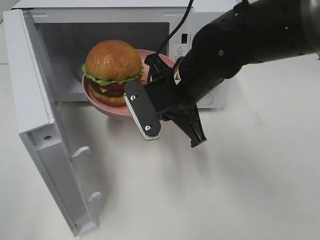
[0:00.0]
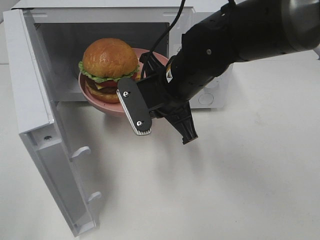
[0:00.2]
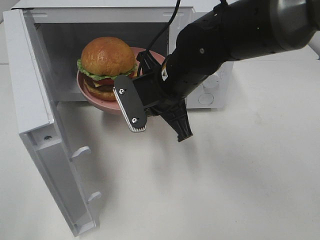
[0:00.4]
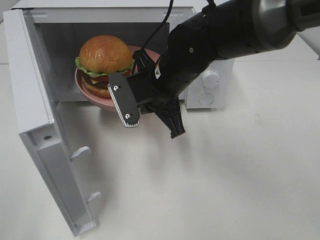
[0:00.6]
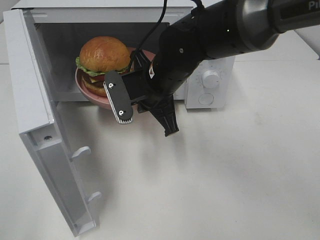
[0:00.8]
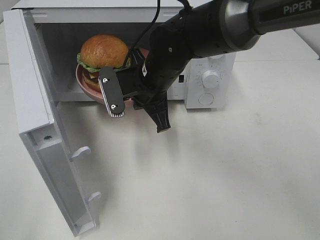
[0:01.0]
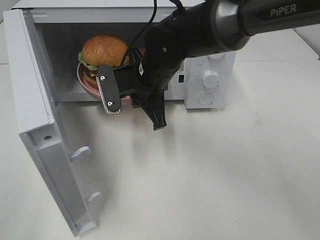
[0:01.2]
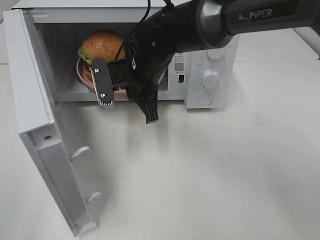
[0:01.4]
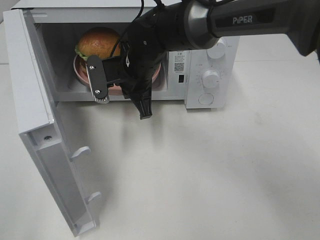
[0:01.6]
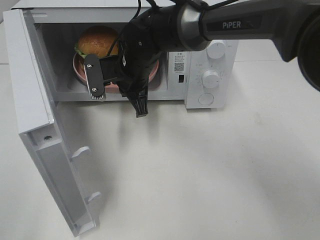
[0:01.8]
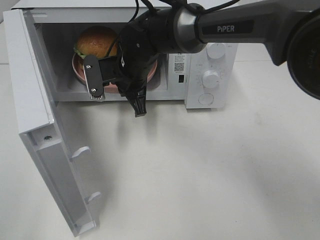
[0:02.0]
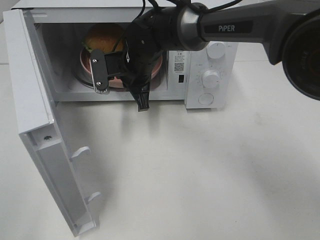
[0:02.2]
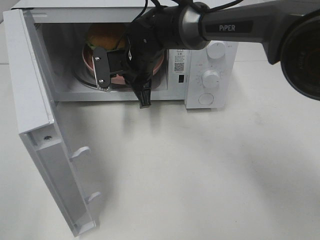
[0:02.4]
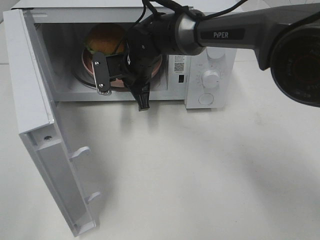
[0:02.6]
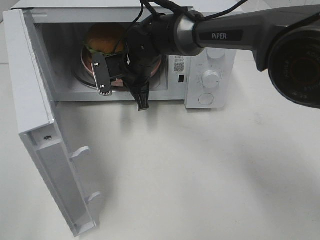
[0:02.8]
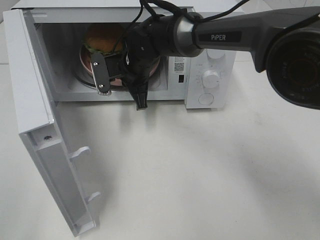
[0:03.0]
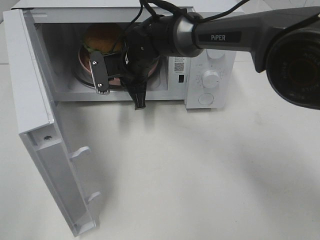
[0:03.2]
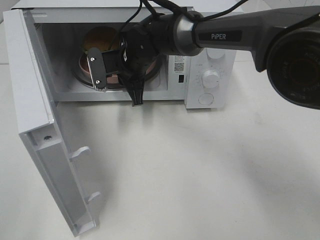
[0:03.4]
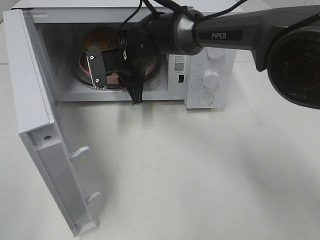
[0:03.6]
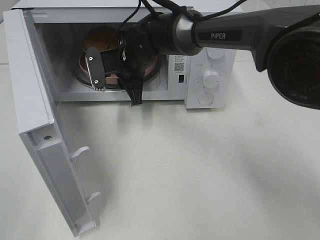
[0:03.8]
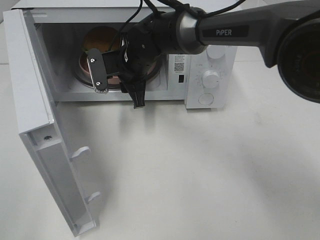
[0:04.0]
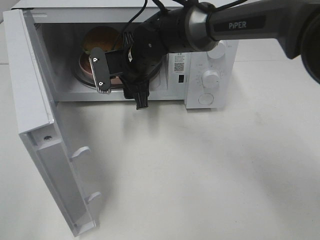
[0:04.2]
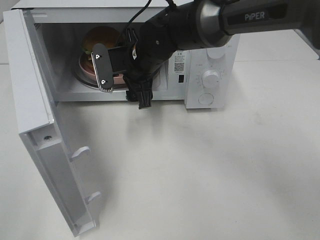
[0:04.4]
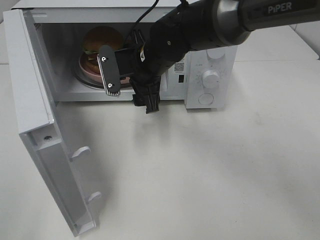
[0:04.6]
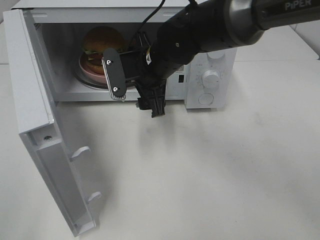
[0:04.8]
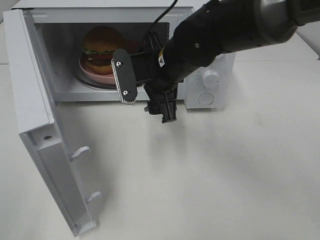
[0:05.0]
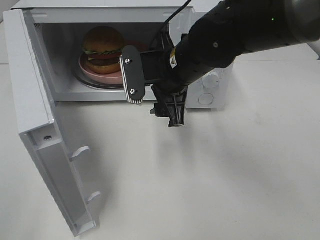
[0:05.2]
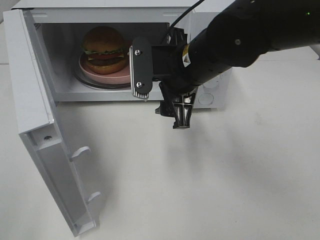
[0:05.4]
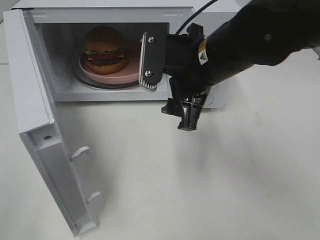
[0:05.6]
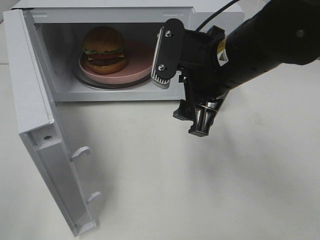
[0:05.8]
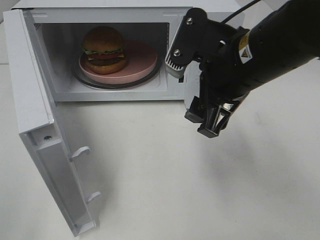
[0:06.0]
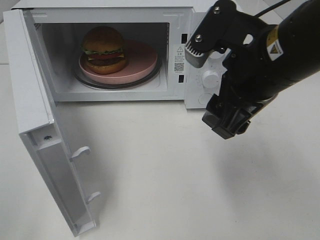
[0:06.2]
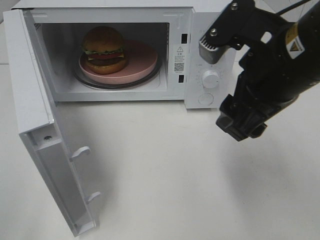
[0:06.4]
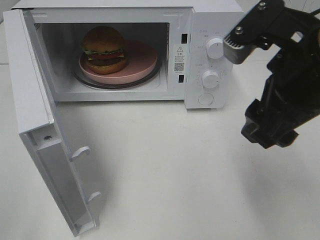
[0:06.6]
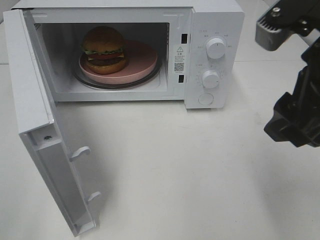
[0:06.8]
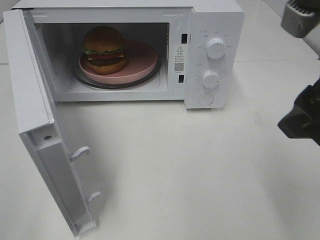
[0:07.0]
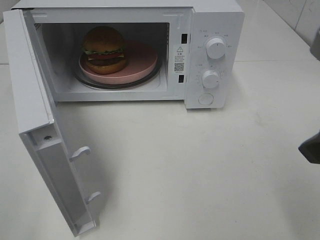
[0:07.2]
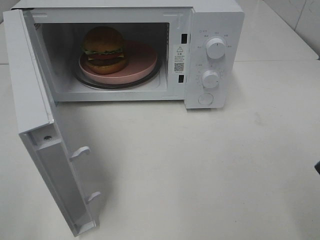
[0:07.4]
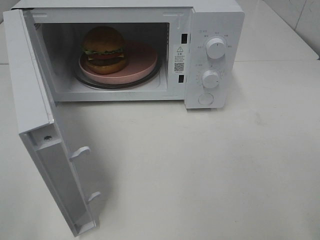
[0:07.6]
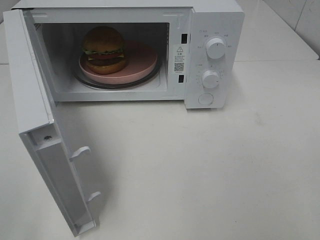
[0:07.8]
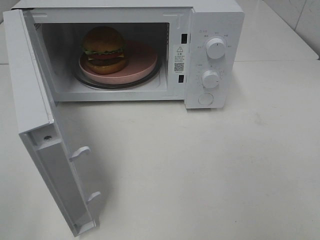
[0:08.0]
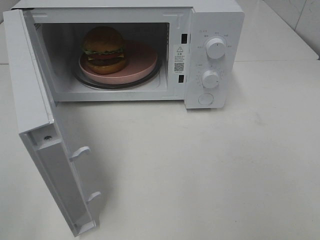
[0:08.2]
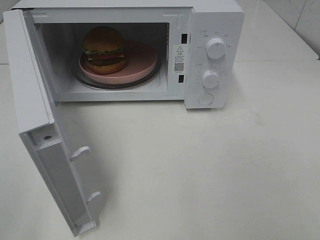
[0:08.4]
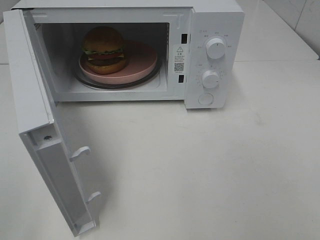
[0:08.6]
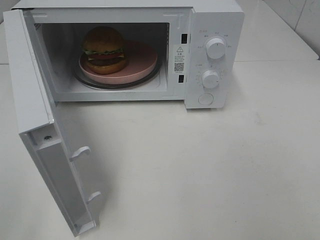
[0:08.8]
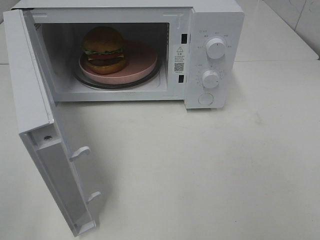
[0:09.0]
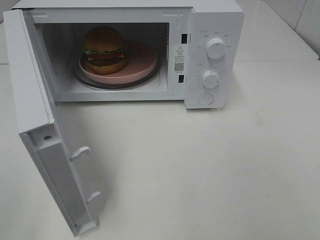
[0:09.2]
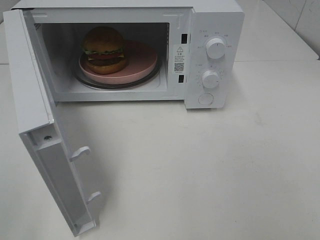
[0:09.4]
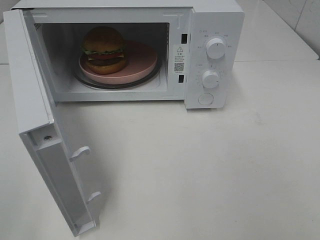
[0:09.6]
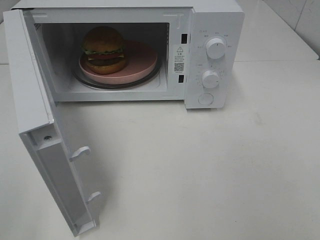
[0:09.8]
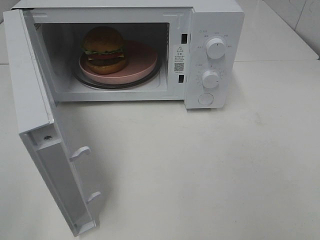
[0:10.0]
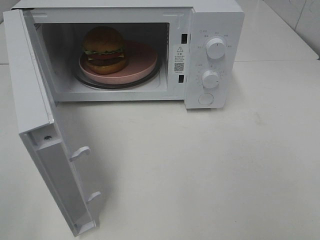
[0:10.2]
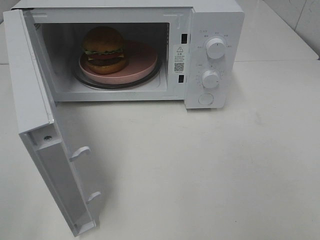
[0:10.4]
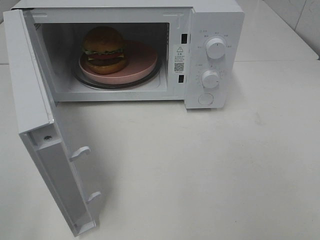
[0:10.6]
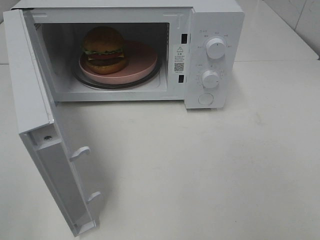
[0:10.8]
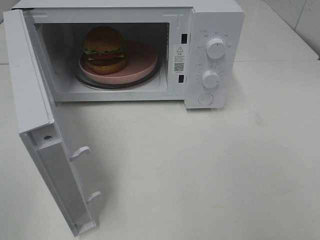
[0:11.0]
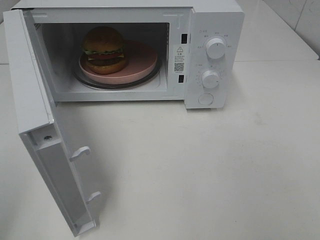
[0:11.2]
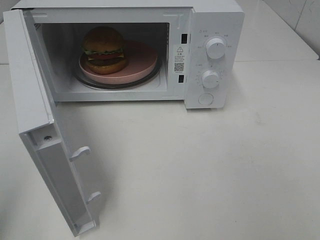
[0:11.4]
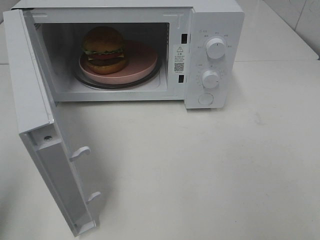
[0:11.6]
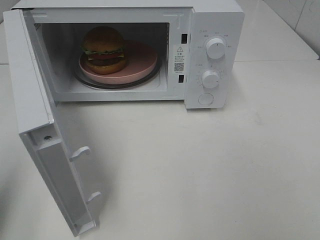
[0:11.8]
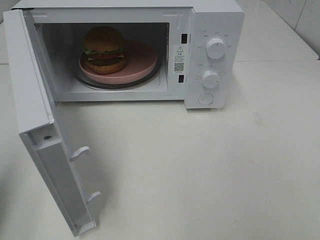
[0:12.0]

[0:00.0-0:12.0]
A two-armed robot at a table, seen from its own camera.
Task of the whole recording: Heat the burger.
Step, 0:00.0 to 0:03.4: Right hand: place the plate in the microwave.
0:00.0 to 0:01.6: The right gripper travels forward and to the left by about 10 cm.
0:01.6 to 0:03.0: The grippers move only a little.
0:03.0 to 0:04.4: The right gripper opens up.
0:04.4 to 0:06.0: The right gripper goes roughly 20 cm backward, to the right and upward.
0:06.0 to 0:07.6: The right gripper goes some 20 cm backward and to the right.
0:09.0 to 0:10.4: Both grippers stay about where they are.
0:10.4 to 0:12.0: The left gripper heads forward, covering some 10 cm, and closes.

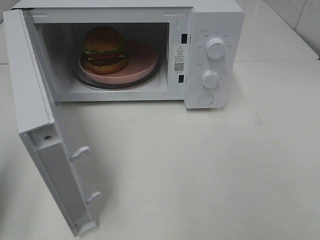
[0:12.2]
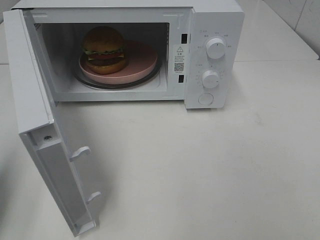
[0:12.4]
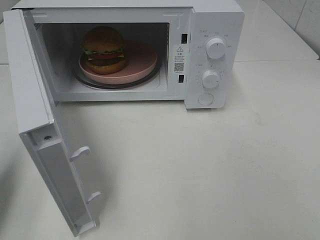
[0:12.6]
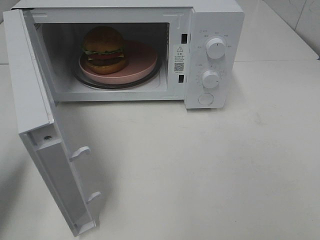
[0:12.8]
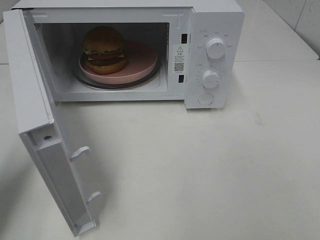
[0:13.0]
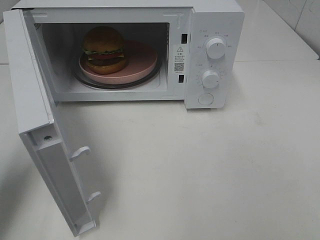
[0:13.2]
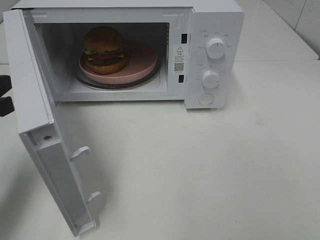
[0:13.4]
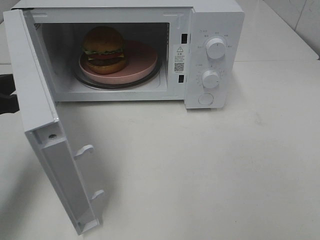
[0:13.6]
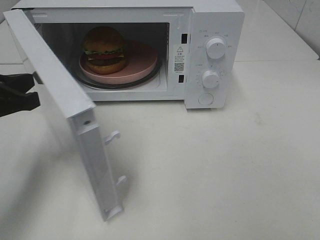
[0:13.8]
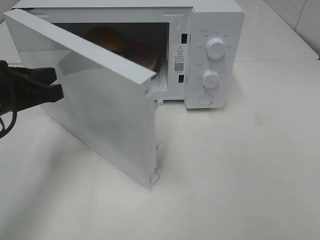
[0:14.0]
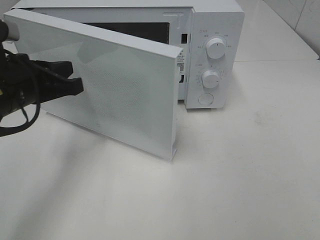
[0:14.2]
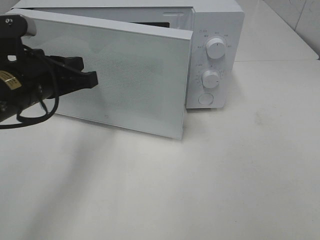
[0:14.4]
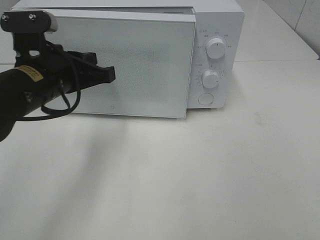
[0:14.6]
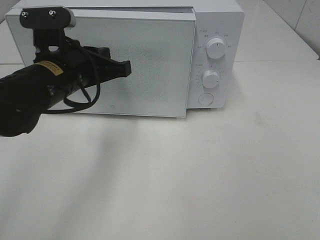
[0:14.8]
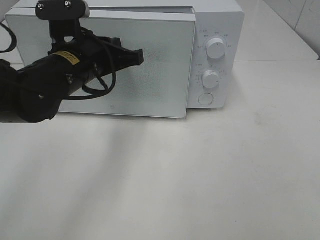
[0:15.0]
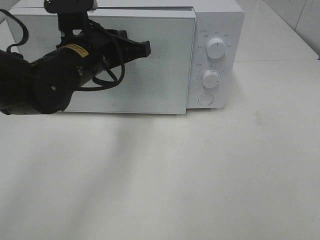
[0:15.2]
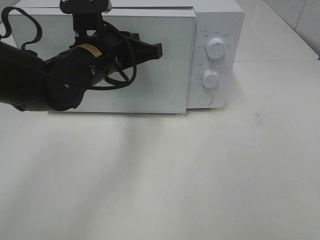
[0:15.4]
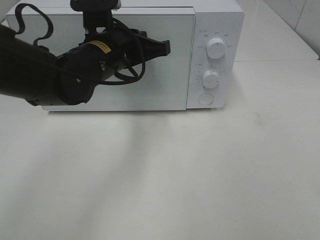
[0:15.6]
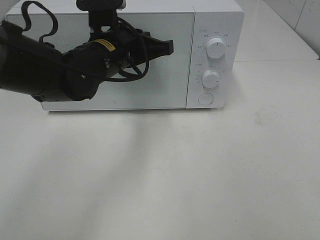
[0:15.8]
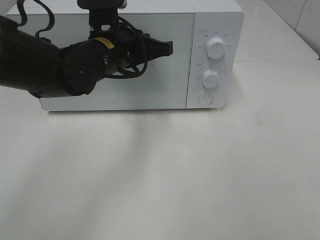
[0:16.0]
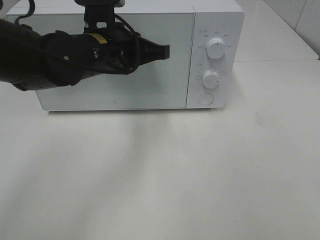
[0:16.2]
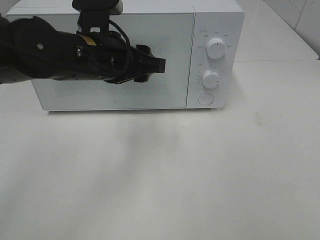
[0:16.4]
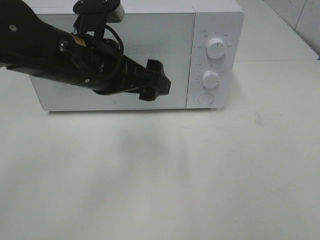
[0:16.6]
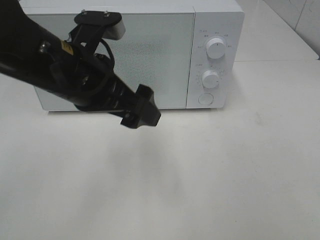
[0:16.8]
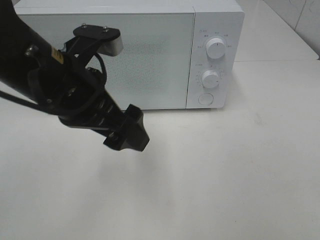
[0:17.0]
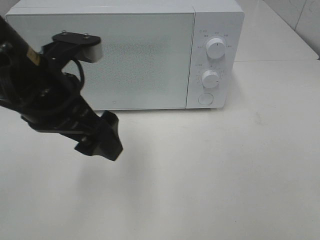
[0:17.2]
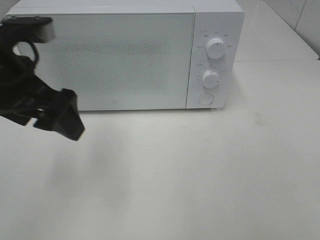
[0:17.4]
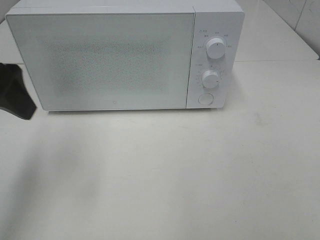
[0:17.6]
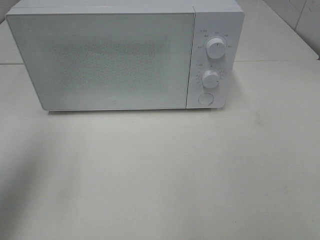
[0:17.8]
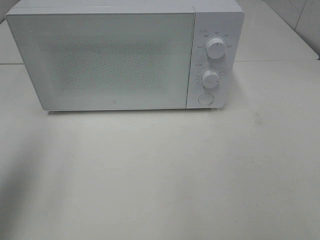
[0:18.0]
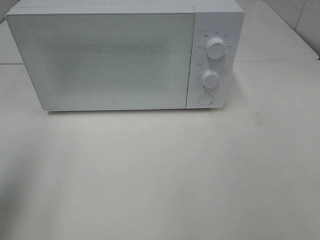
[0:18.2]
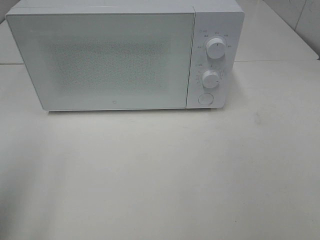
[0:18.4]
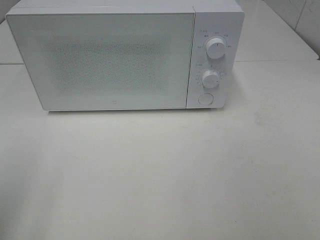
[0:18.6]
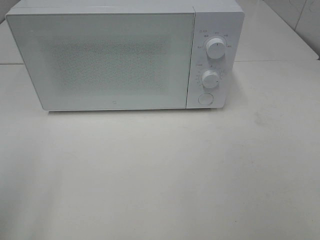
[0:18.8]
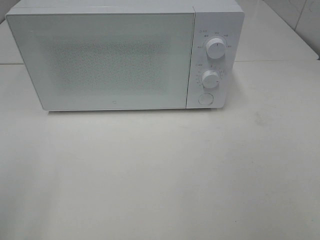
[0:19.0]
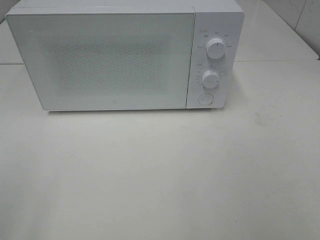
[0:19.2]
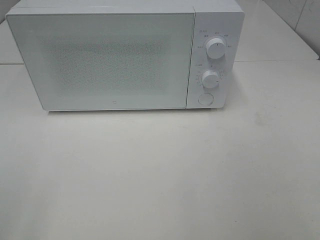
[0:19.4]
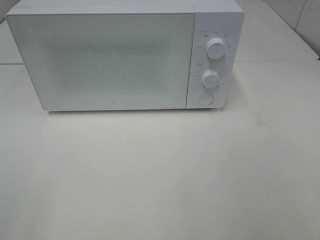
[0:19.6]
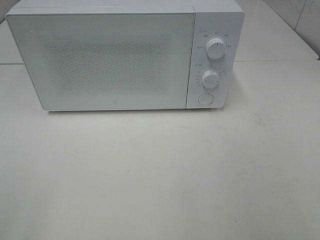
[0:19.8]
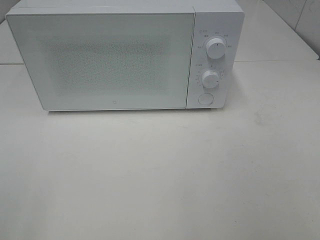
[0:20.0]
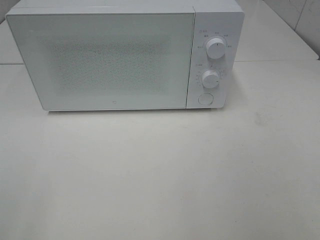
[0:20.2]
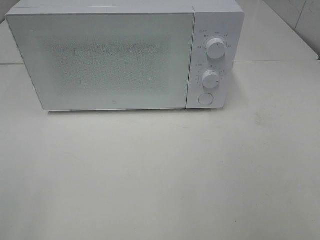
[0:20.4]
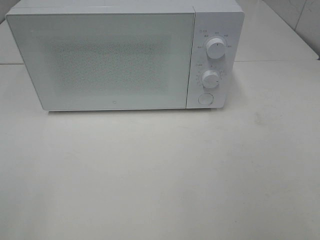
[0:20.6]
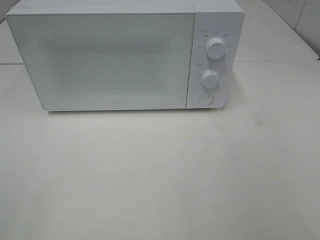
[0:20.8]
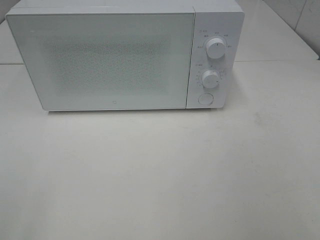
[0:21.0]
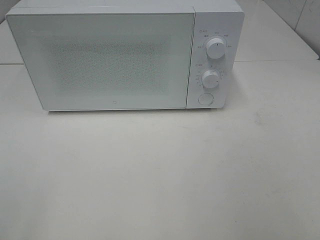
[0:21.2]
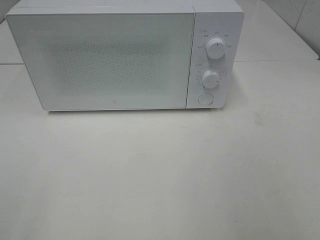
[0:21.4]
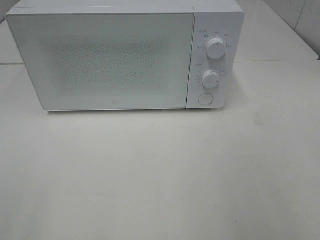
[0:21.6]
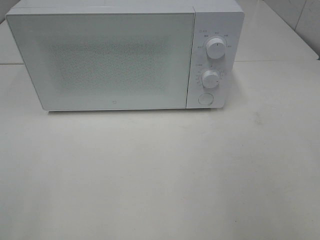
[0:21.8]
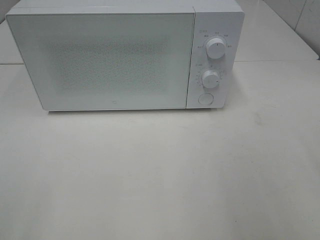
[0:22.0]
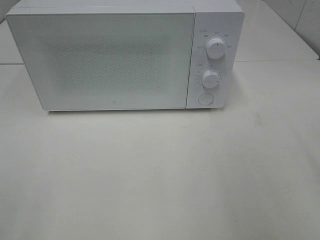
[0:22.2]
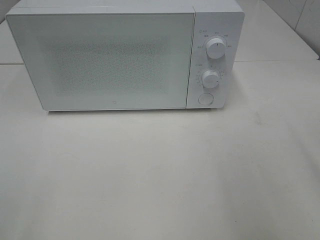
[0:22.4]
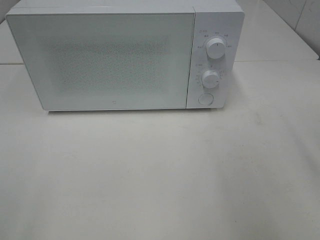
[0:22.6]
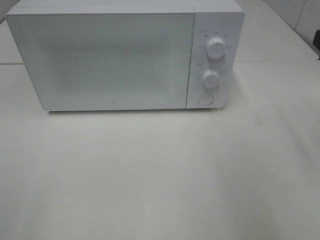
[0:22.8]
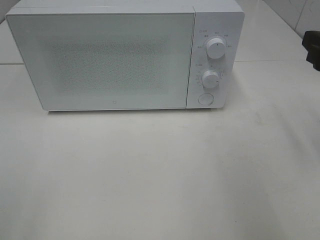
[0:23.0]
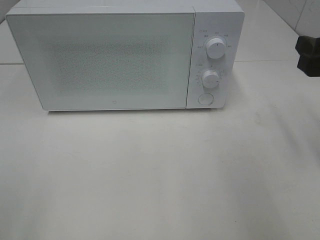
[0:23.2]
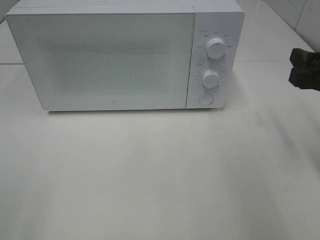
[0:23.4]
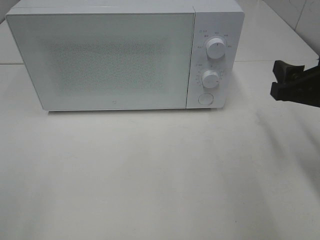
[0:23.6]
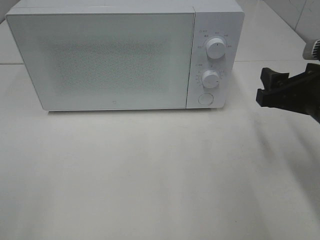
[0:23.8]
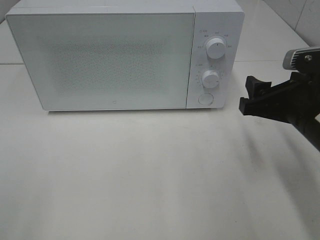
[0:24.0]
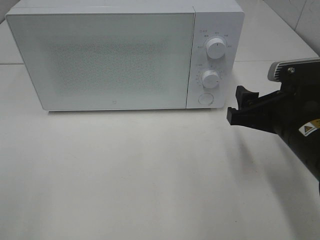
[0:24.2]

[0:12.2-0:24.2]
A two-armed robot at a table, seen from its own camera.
Task of the whole recording: Heat the burger.
Step, 0:12.2 to 0:16.2: Left hand: close the microwave door.
0:12.2 to 0:13.8: The left gripper heads forward and to the right, covering roughly 15 cm.
0:13.8 to 0:15.2: The left gripper moves to the right and forward, approximately 15 cm.
0:15.2 to 0:16.6: The left gripper goes approximately 5 cm backward, and opens its fingers.
0:16.6 to 0:18.2: The left gripper goes some 25 cm to the left, backward and upward.
0:18.2 to 0:19.8: The left gripper moves backward, approximately 15 cm.
0:22.6 to 0:24.2: The right gripper moves downward and to the left, roughly 15 cm.
